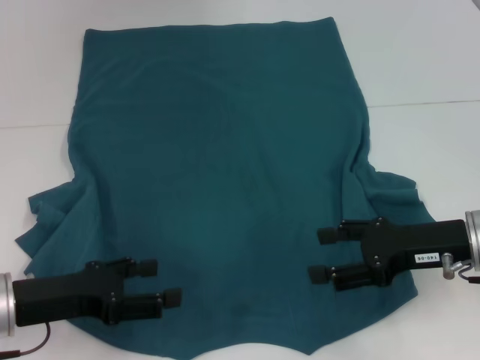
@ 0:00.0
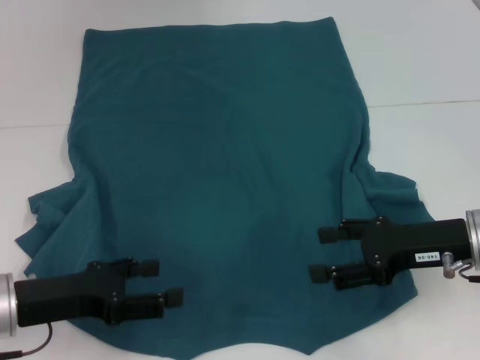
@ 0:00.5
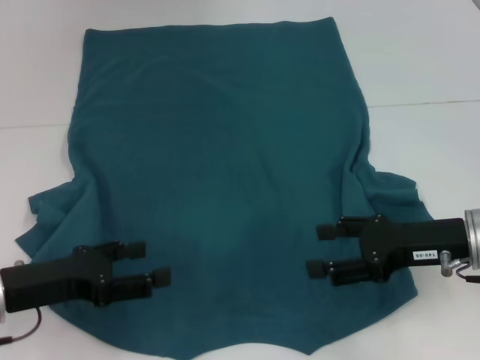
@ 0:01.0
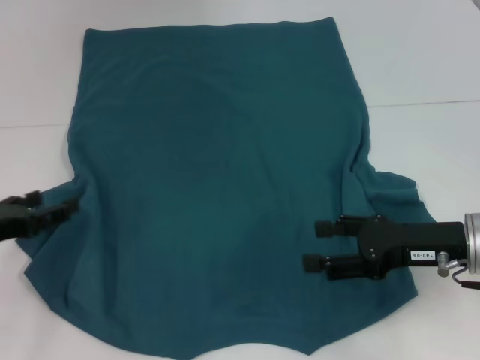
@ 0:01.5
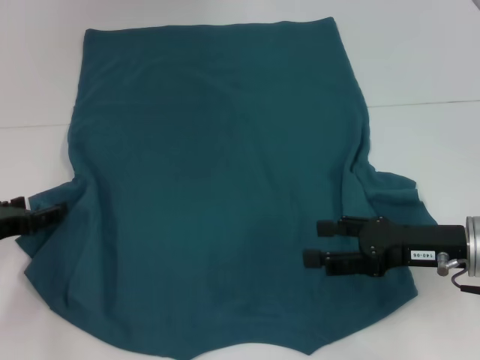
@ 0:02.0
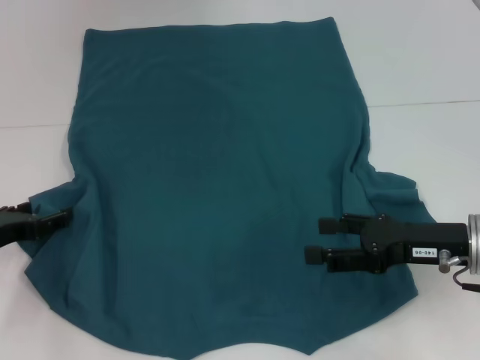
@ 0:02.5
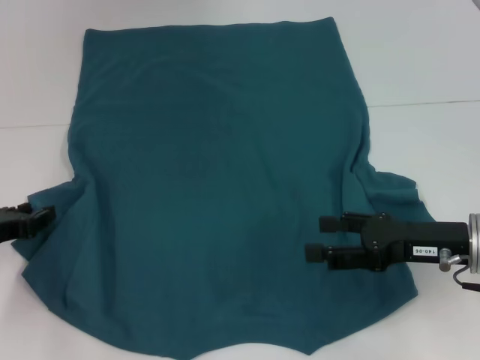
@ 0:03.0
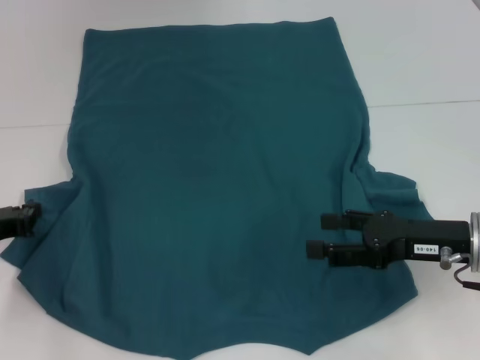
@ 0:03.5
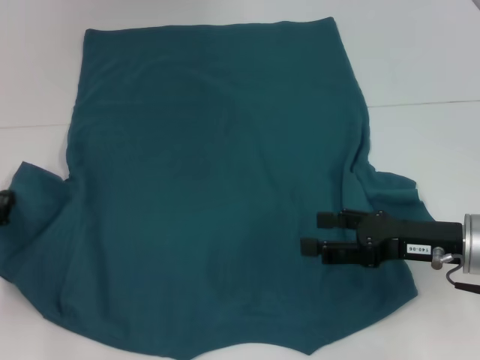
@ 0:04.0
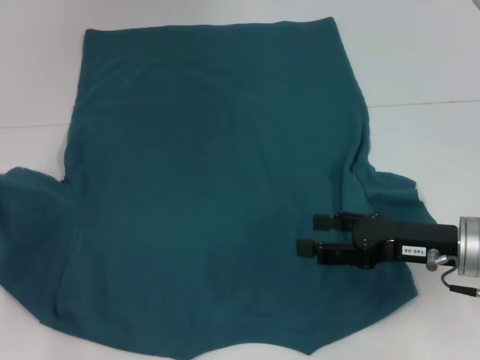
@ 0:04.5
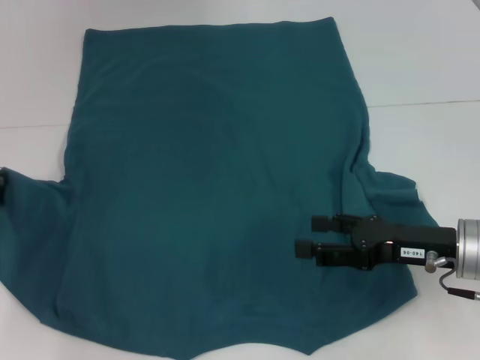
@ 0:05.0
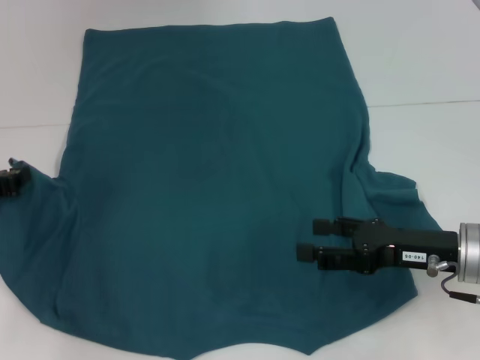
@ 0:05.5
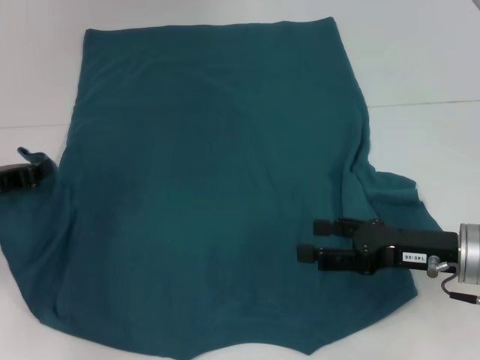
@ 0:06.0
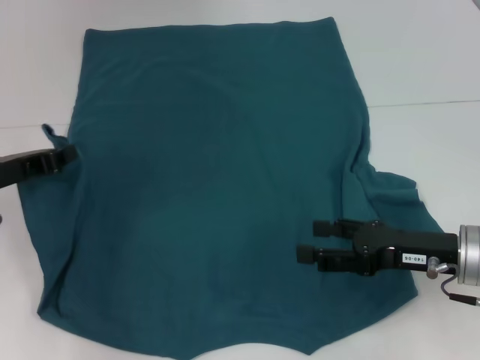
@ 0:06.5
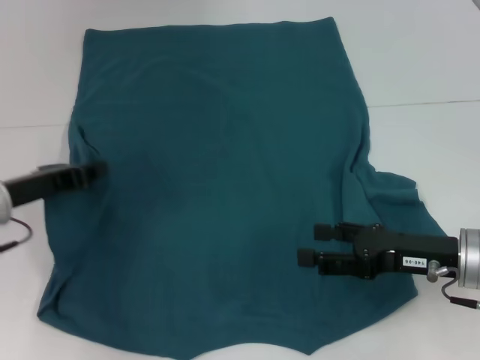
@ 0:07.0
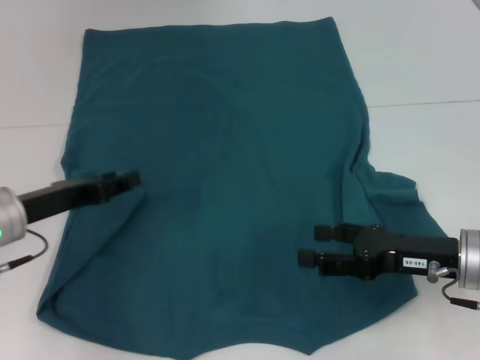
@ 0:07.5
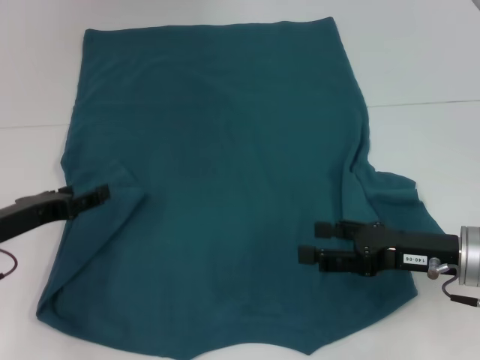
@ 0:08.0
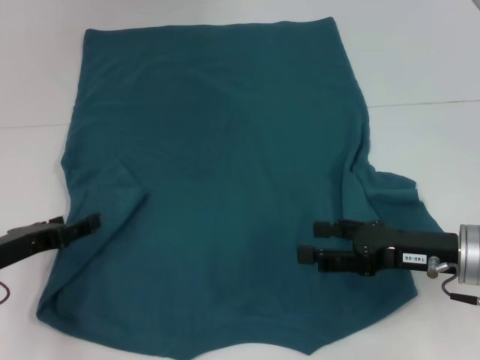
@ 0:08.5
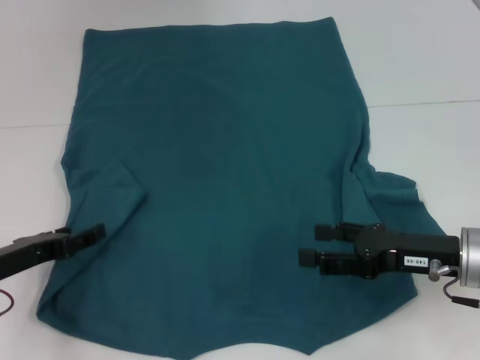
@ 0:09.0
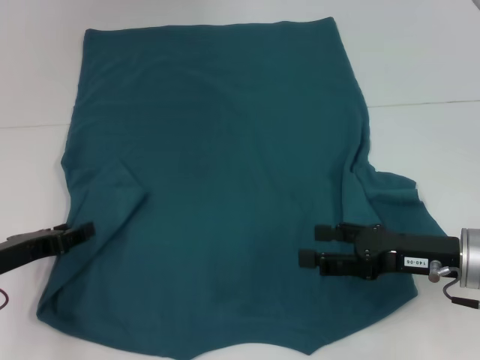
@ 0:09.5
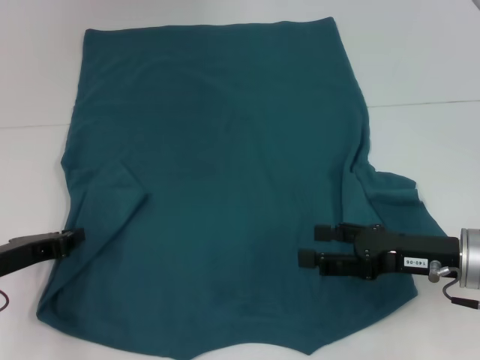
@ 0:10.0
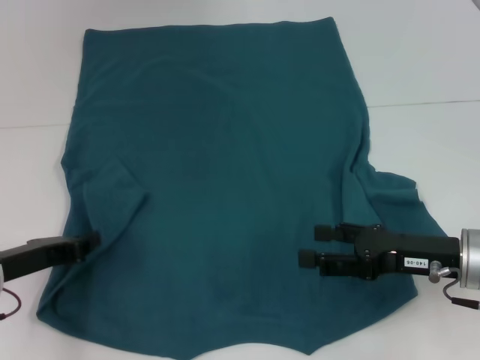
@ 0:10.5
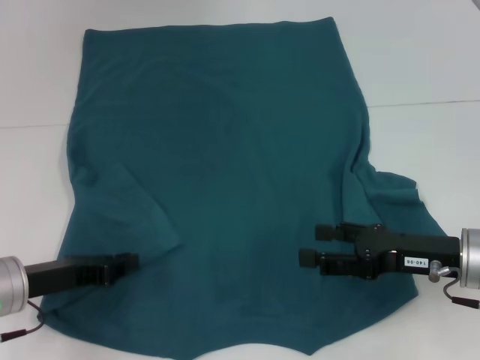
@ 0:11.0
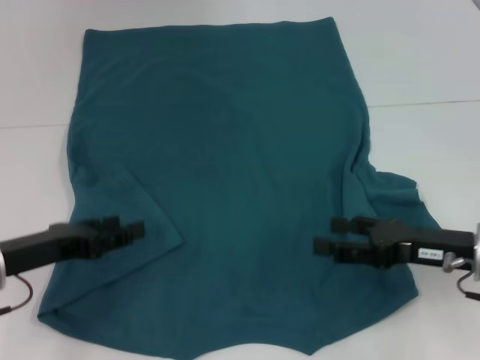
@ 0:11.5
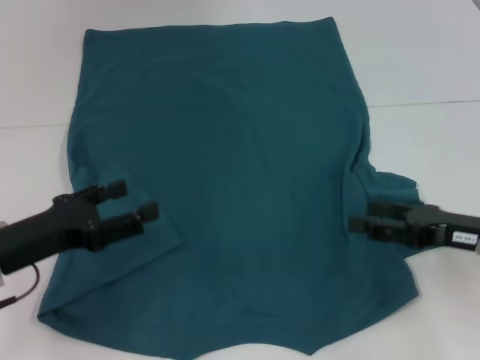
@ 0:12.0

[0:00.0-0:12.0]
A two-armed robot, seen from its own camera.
Step, 0:00.0 to 0:11.0: Fold the bottom left sleeve with your left hand.
0:00.0 to 0:02.0: The left gripper shifts roughly 10 cm to the left and forward.
0:02.0 to 0:04.0: The left gripper closes.
0:04.0 to 0:06.0: The left gripper moves about 5 cm.
0:06.0 to 0:08.0: The left gripper opens its fingers.
0:08.0 to 0:10.0: The left gripper closes its fingers.
0:10.0 to 0:12.0: The left gripper moves approximately 5 cm, and opens.

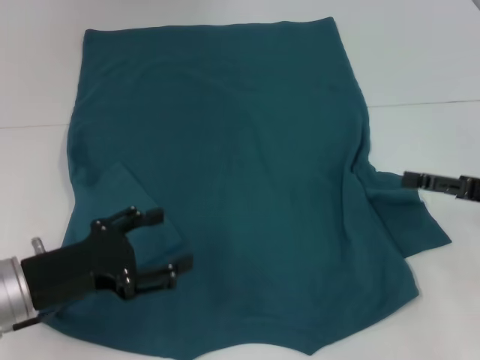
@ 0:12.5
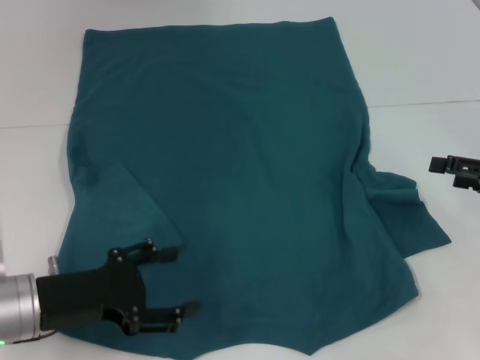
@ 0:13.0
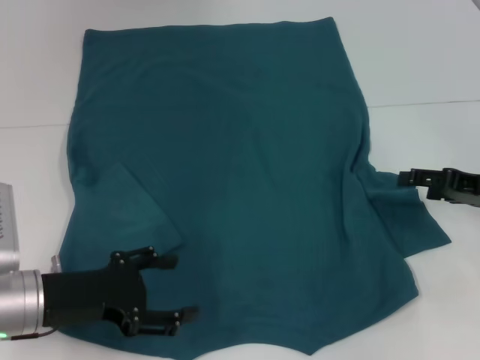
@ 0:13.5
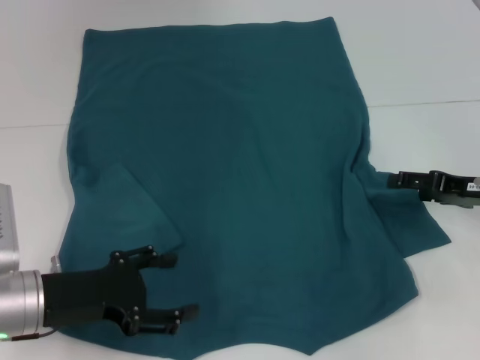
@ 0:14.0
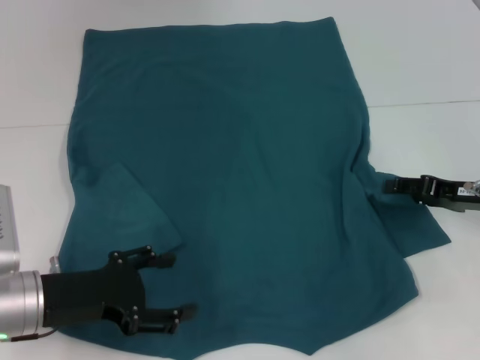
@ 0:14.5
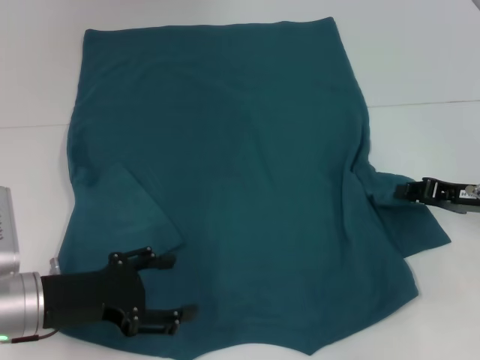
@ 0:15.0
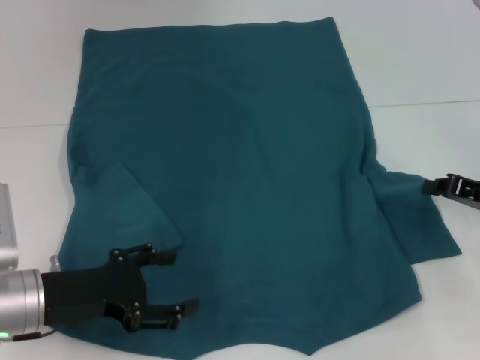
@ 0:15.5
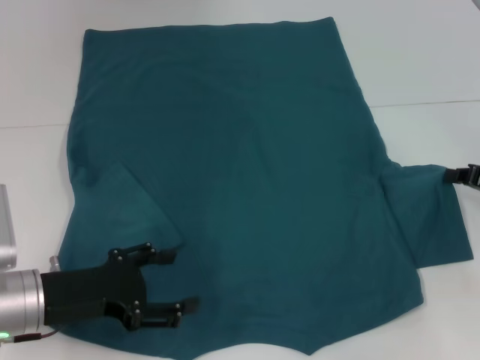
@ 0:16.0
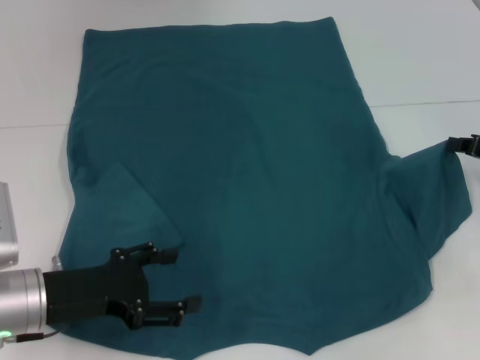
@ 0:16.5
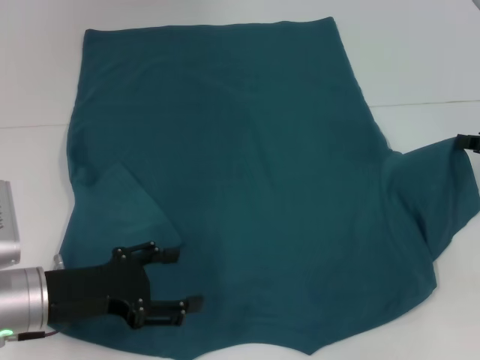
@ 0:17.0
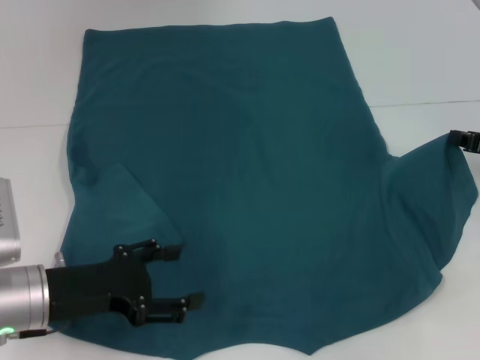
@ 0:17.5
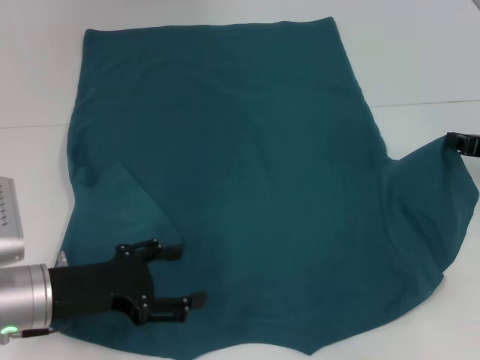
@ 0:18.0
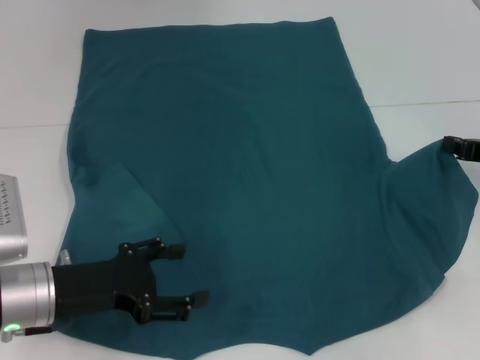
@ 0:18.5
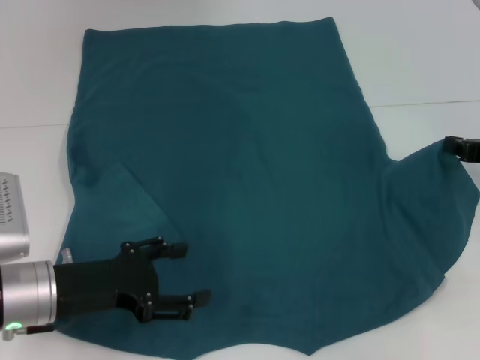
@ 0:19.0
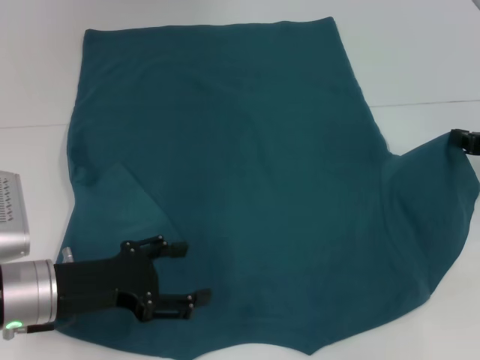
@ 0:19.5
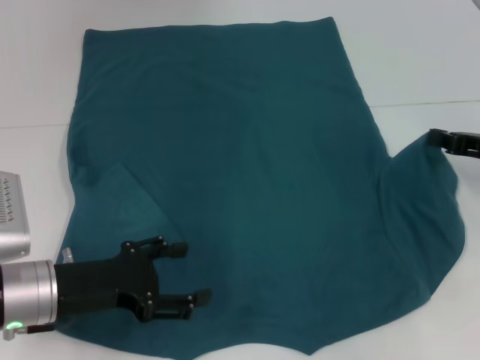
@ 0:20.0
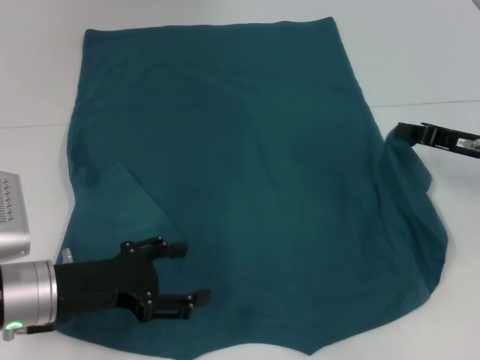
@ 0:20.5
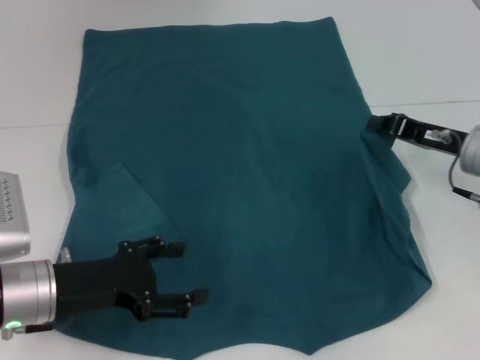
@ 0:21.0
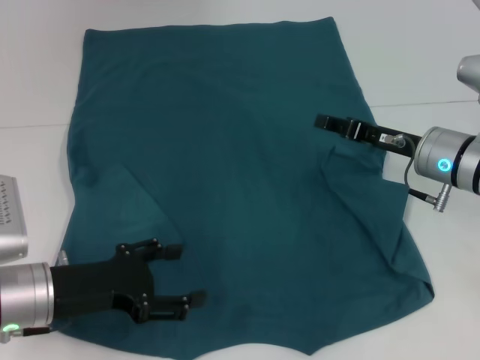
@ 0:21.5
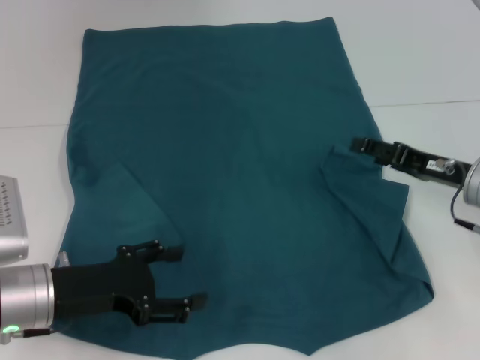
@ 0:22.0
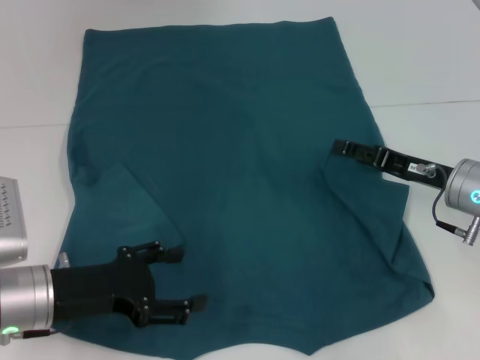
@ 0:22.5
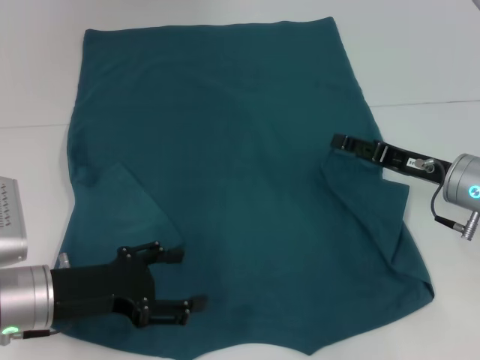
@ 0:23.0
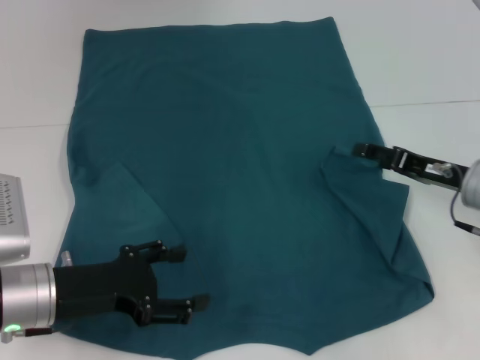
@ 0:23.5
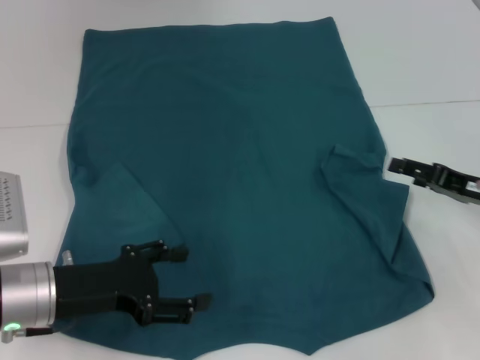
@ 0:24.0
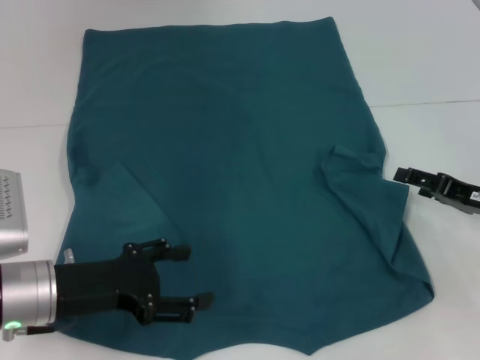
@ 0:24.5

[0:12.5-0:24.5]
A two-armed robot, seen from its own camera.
0:12.5 to 0:14.5: The right gripper moves about 5 cm.
0:14.5 to 0:16.5: The right gripper ends up roughly 5 cm from where it was, and closes.
0:16.5 to 0:20.5: The grippers make only small movements.
0:20.5 to 0:22.5: The right gripper shifts by about 5 cm, and opens up.
0:22.5 to 0:24.5: The right gripper is displaced to the right by about 5 cm.

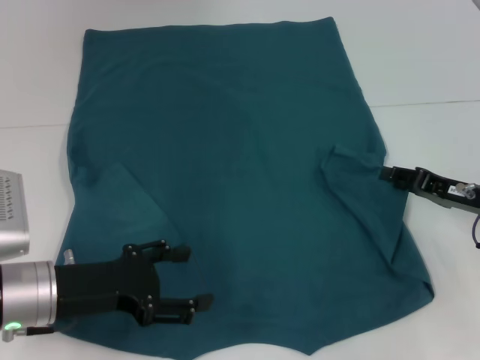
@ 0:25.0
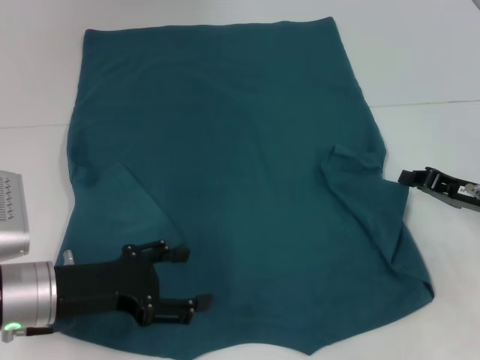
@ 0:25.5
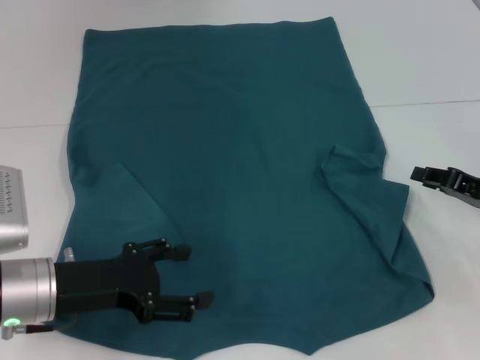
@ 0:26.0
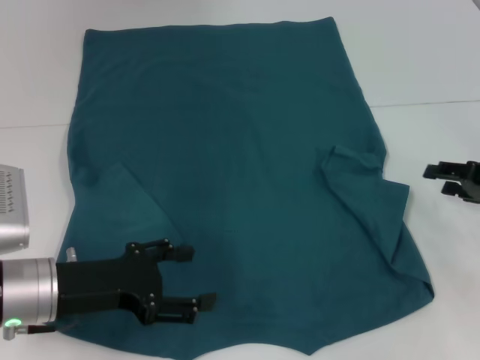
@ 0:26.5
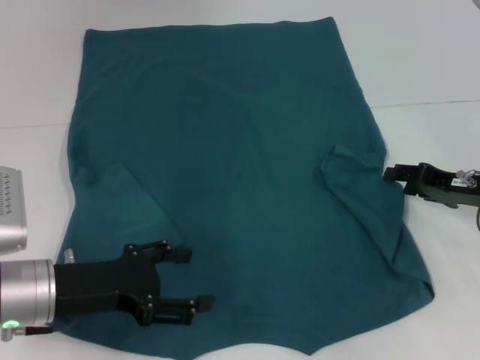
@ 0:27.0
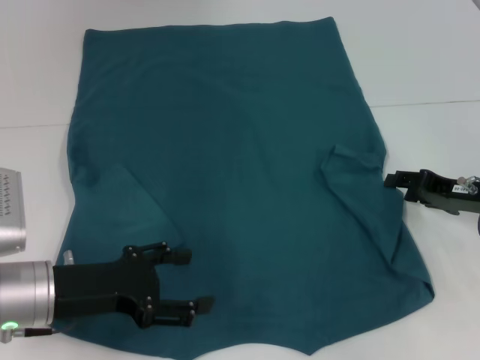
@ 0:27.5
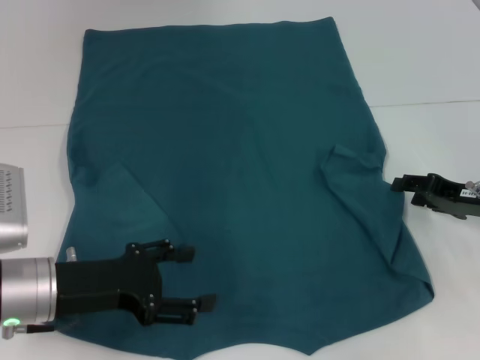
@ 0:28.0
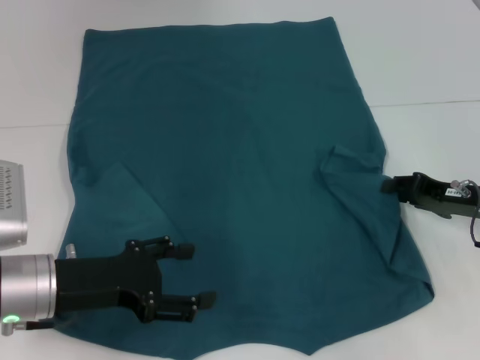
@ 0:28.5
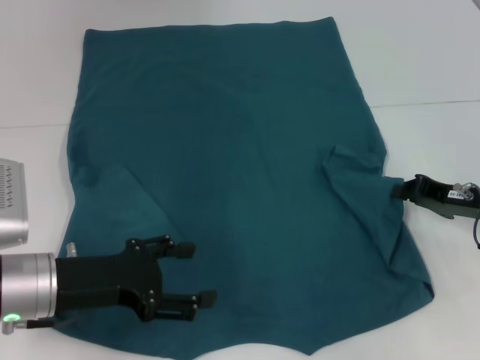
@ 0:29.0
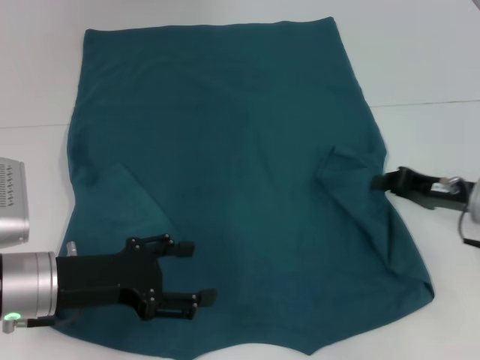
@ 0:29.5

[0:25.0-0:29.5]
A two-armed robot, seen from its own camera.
0:25.0 to 0:27.0: The right gripper closes and opens again.
0:27.0 to 0:29.5: The right gripper closes.
